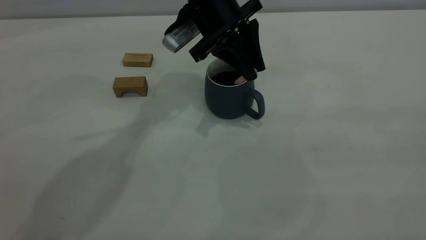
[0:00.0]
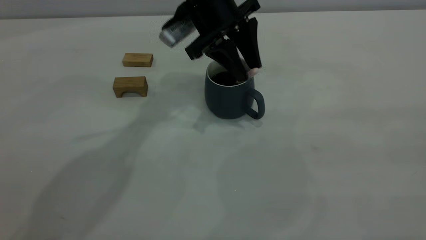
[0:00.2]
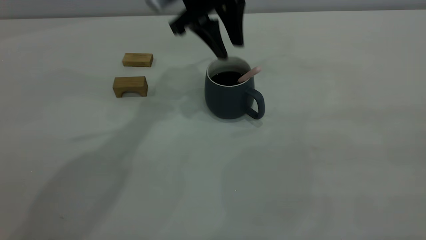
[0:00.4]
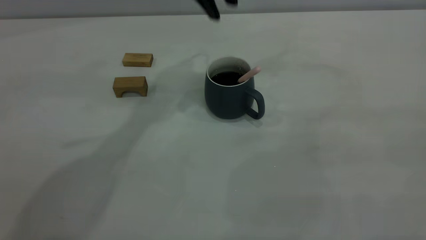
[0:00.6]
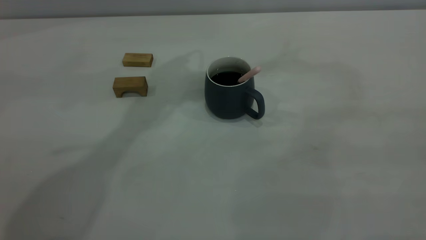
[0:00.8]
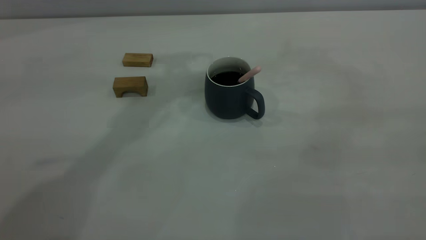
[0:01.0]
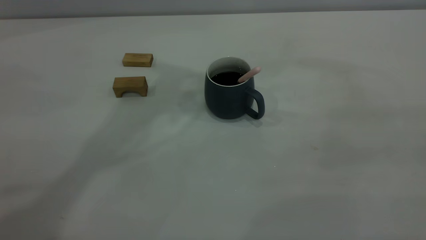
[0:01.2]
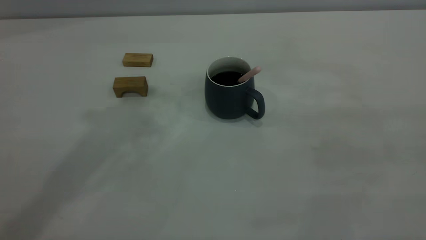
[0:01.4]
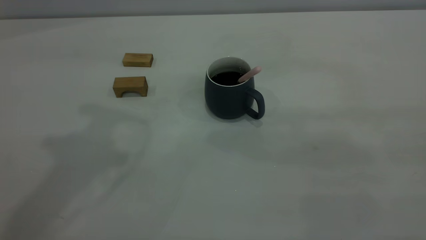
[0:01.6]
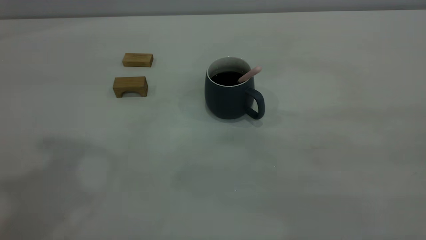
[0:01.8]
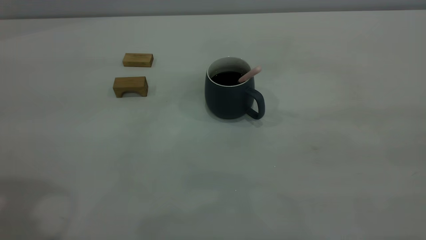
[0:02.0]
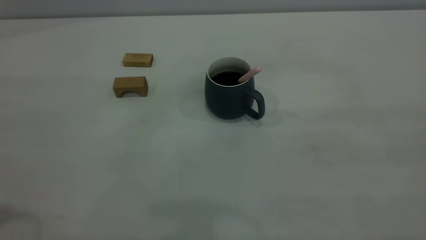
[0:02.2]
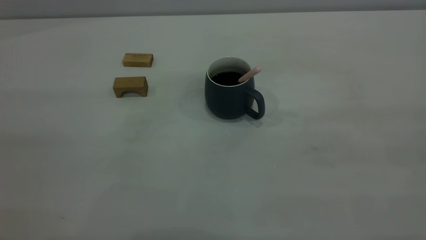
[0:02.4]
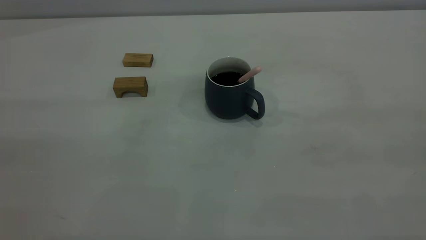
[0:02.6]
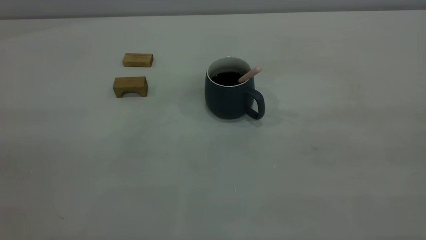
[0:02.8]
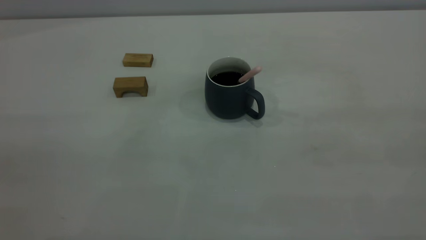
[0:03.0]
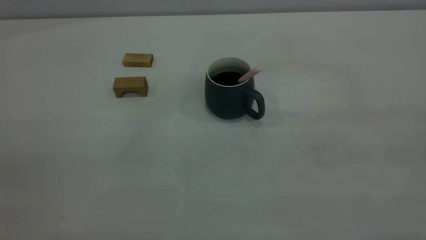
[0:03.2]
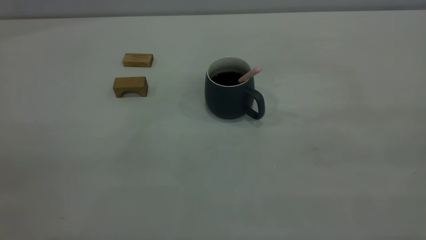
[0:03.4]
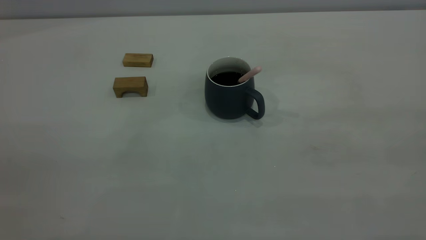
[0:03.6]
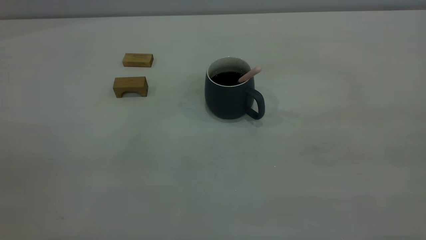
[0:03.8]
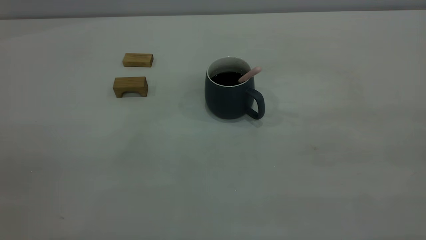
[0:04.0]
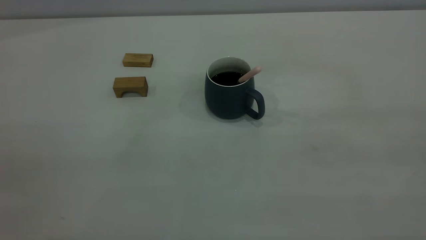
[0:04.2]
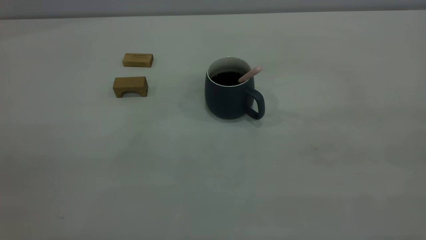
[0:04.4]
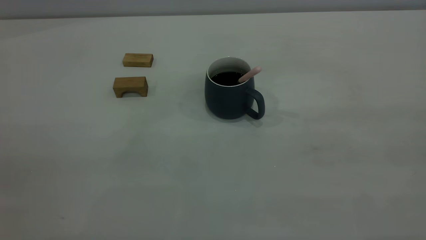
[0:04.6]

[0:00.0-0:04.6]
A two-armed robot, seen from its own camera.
0:00.0 to 0:01.6: The left gripper goes approximately 30 cm upward, to the left and backward.

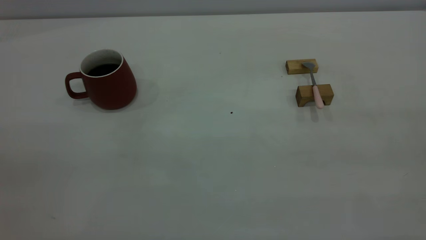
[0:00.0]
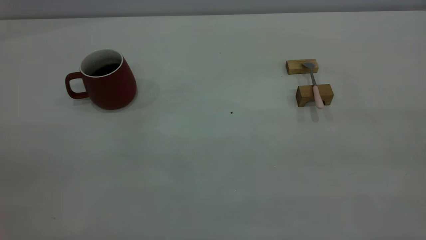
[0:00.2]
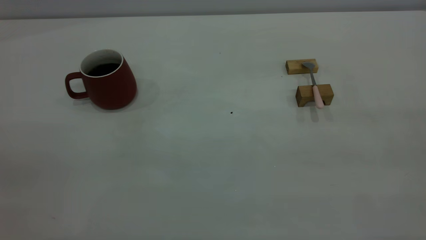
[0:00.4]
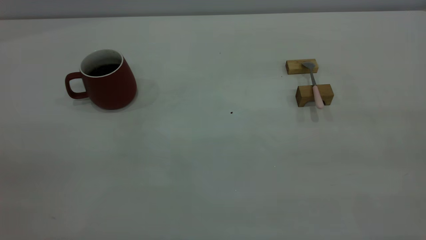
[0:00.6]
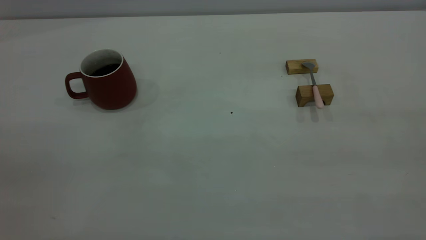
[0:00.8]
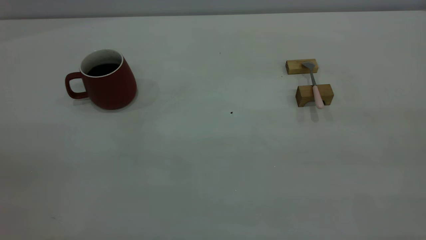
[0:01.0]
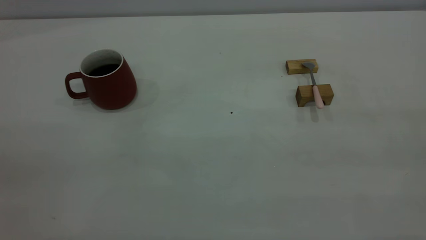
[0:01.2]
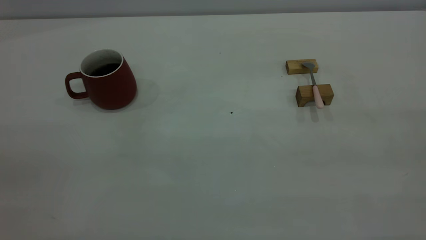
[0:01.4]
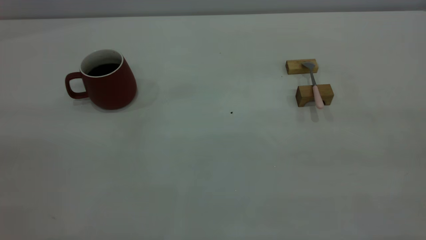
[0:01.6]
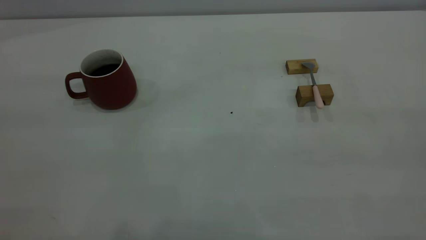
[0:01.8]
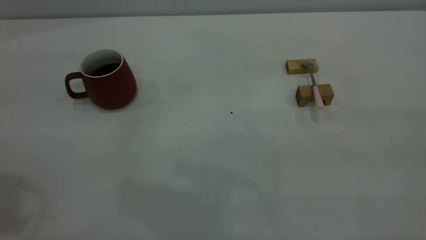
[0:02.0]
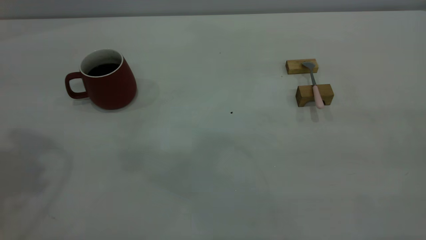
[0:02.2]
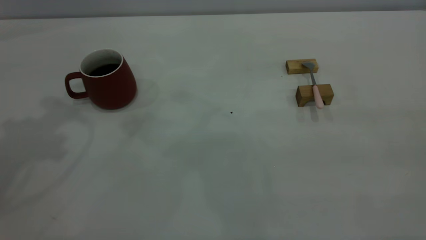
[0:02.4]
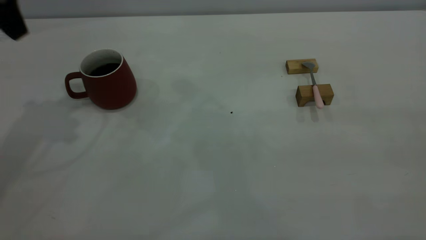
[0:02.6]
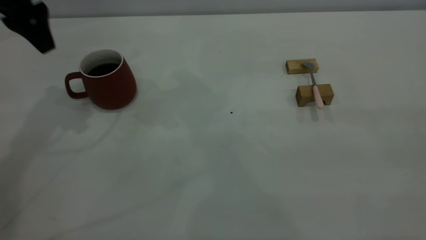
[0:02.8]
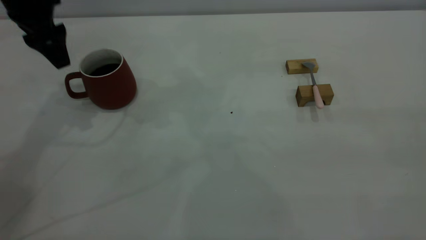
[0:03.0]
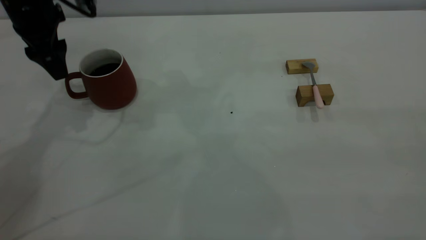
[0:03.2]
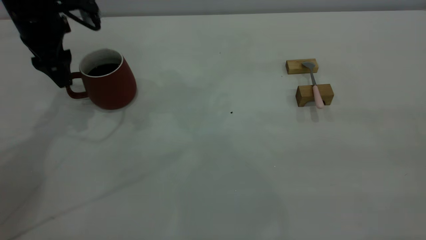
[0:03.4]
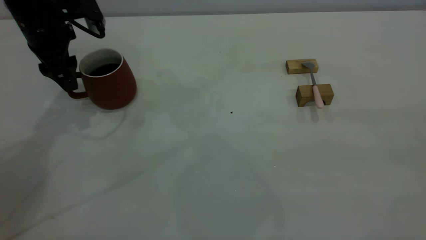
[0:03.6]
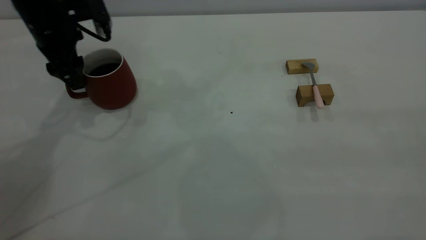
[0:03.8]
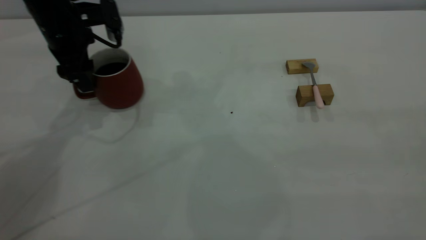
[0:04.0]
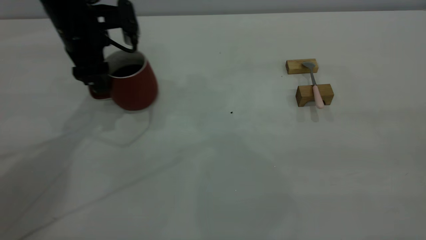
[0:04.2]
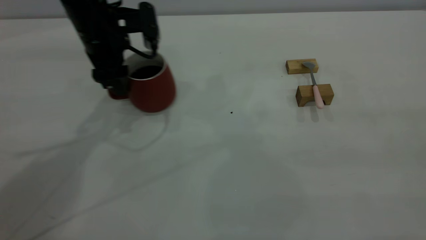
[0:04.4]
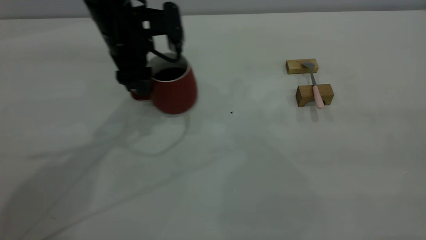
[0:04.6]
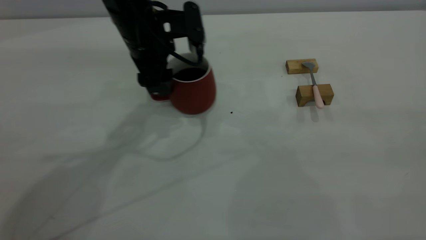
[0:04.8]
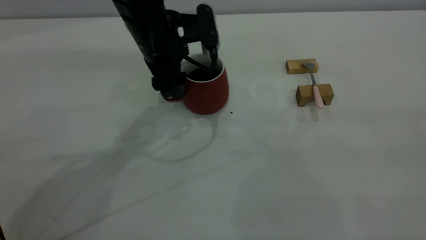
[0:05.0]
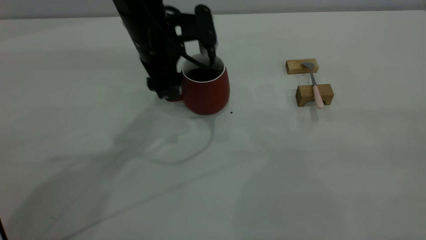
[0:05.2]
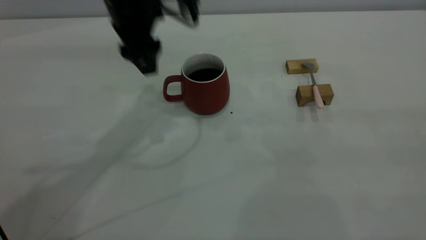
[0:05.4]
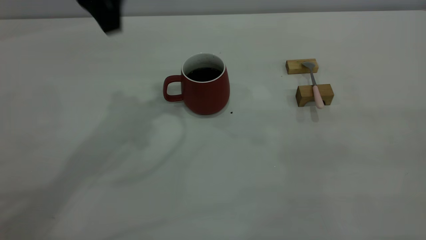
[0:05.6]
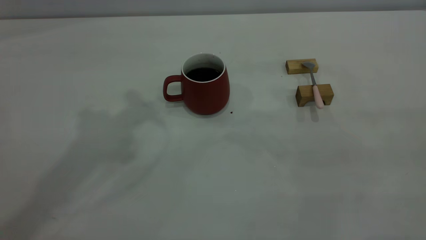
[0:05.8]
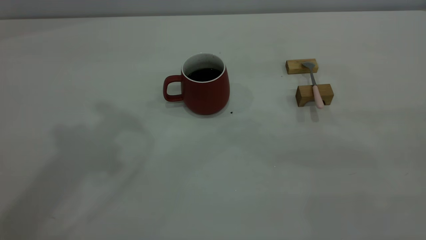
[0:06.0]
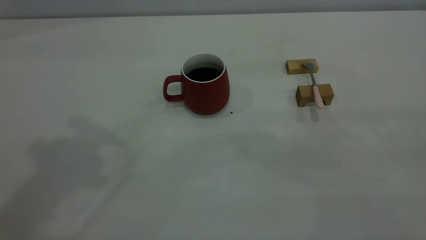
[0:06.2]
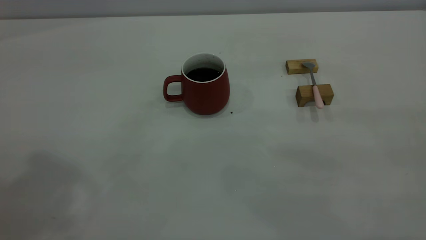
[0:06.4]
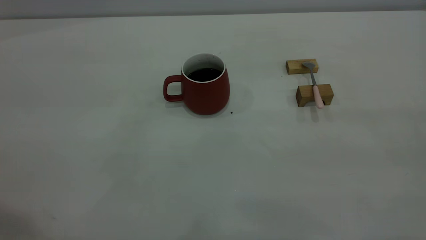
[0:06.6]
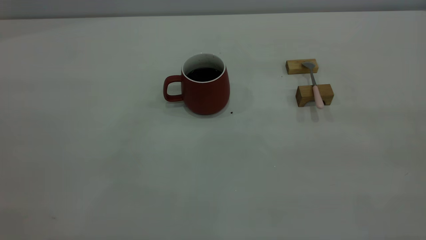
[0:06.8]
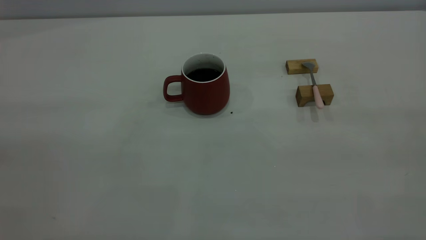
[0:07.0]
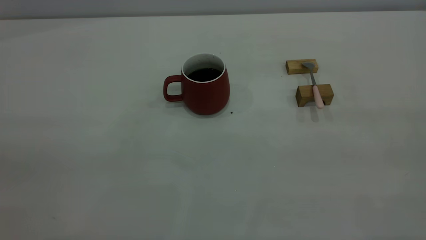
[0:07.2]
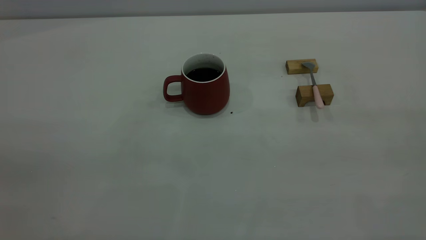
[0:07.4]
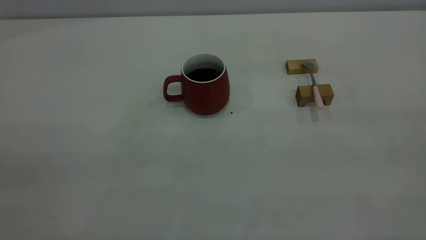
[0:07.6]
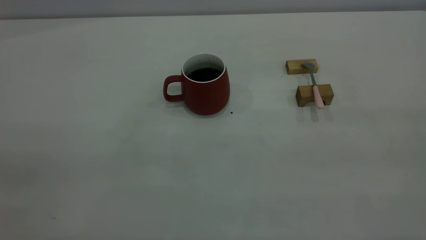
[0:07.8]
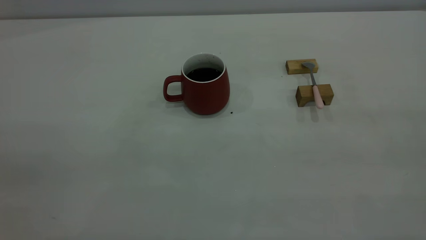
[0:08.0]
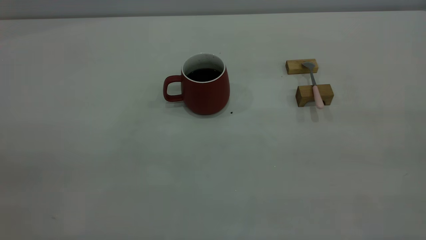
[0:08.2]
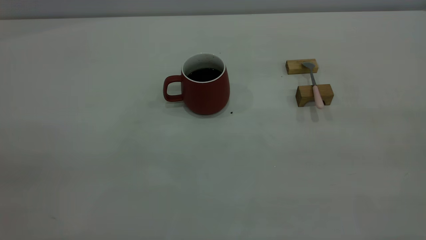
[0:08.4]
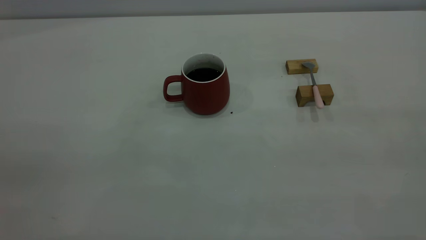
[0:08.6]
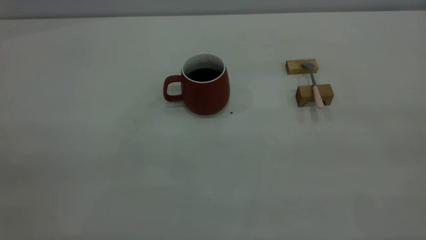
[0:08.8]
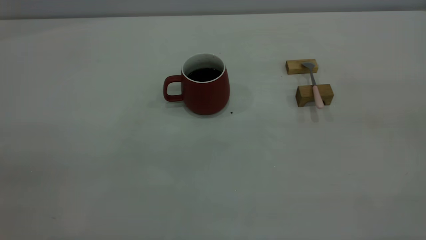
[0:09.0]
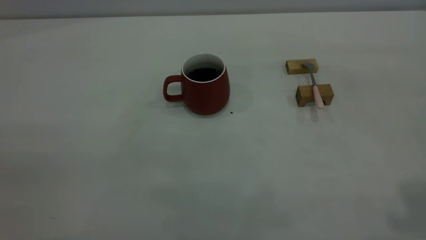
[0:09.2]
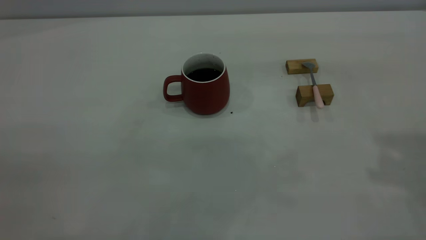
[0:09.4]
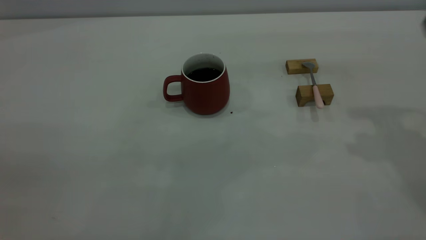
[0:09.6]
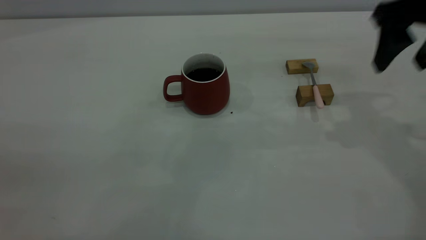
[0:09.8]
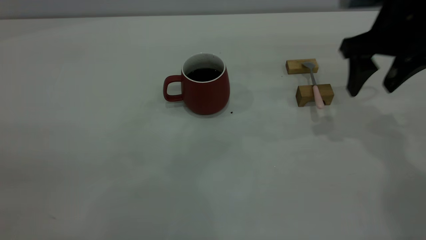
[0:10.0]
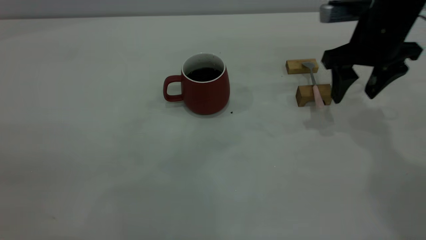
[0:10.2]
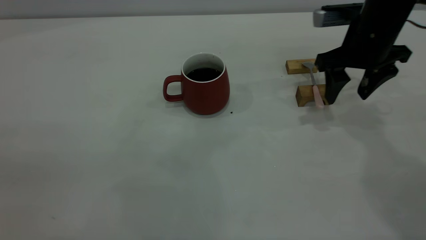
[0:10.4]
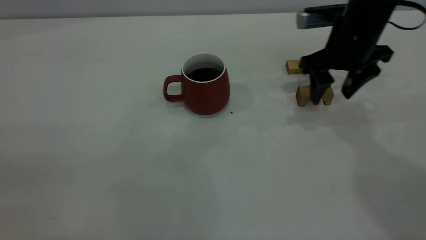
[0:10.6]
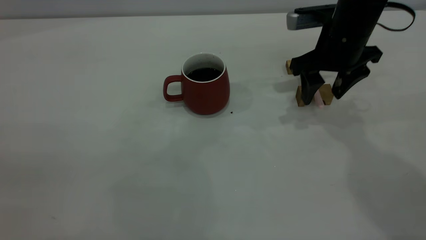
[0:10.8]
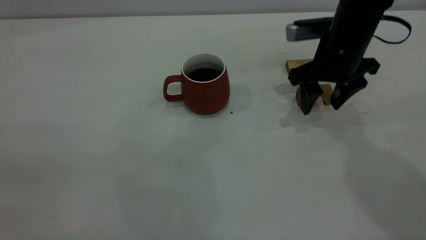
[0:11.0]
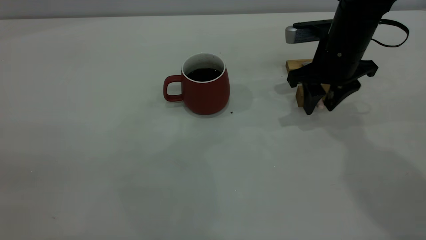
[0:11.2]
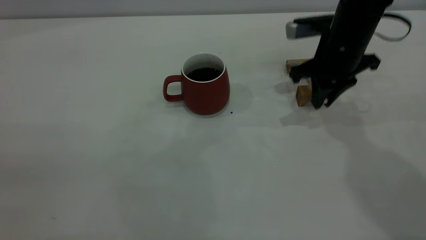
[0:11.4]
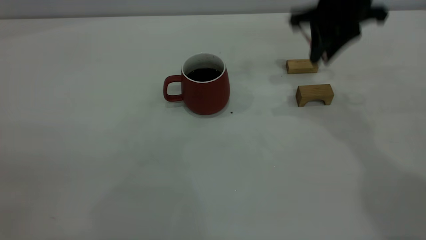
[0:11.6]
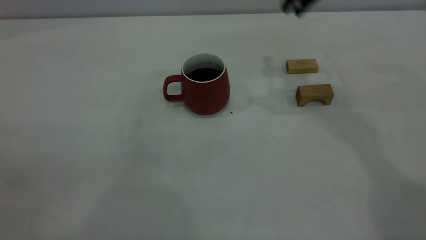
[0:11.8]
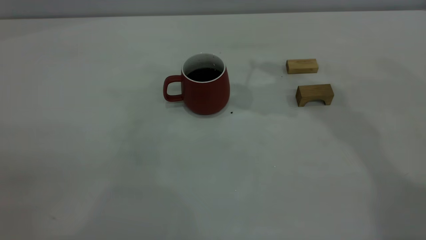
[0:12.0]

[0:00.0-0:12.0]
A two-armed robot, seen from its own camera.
Step, 0:00.0 to 0:05.4: Move the cup with coffee to the center of view.
Step, 0:05.6 to 0:11.4: Pick up the spoon.
0:01.6 to 0:03.0: The left gripper moves forward and downward, about 40 cm.
0:03.0 to 0:04.4: The left gripper goes about 10 cm to the right and downward.
0:04.4 to 0:06.0: The left gripper shifts some 35 cm upward and backward.
0:09.0 to 0:10.4: The right gripper heads forward and downward, covering approximately 40 cm, and opens its fingers.
0:10.4 to 0:12.0: The right gripper moves upward and to the left, approximately 20 cm, and closes.
